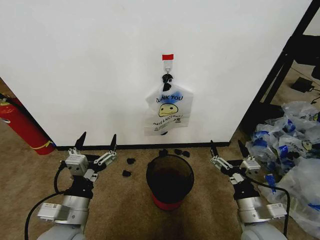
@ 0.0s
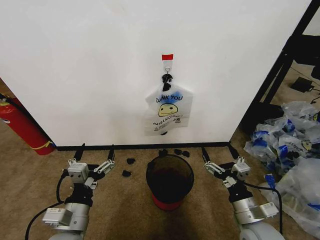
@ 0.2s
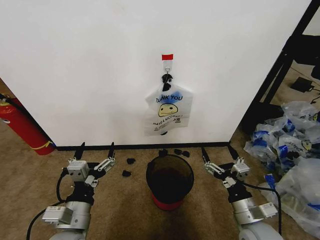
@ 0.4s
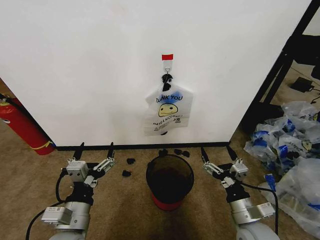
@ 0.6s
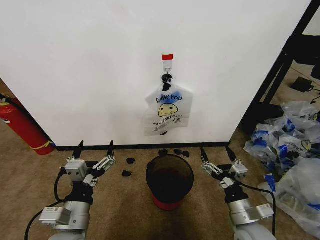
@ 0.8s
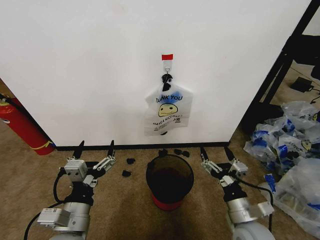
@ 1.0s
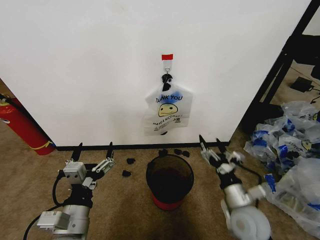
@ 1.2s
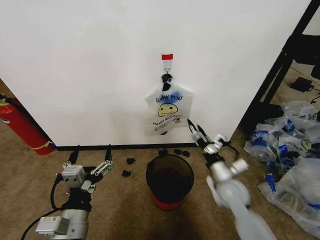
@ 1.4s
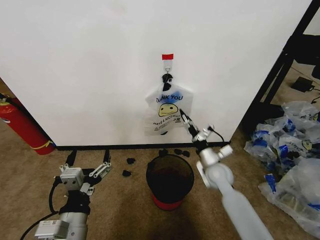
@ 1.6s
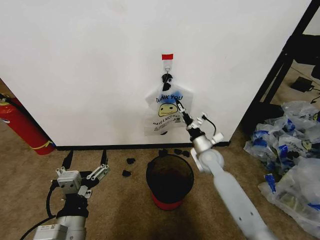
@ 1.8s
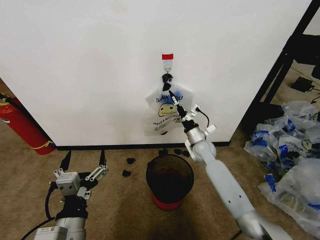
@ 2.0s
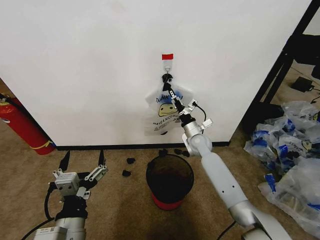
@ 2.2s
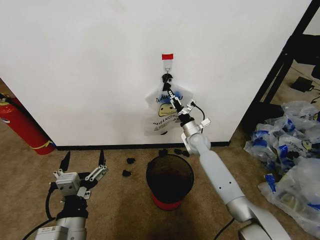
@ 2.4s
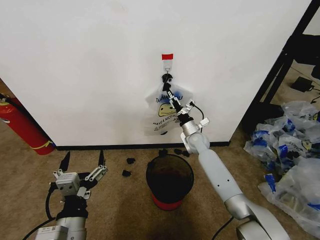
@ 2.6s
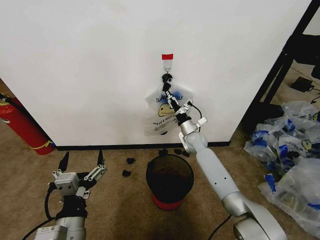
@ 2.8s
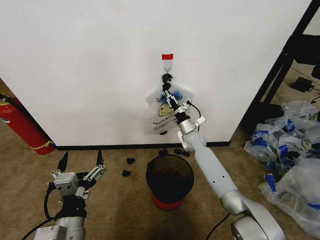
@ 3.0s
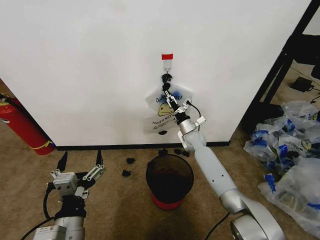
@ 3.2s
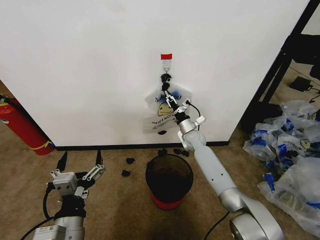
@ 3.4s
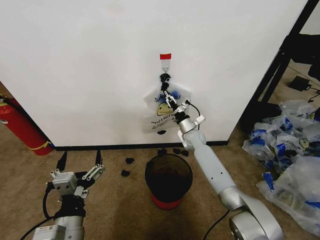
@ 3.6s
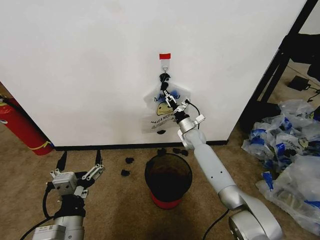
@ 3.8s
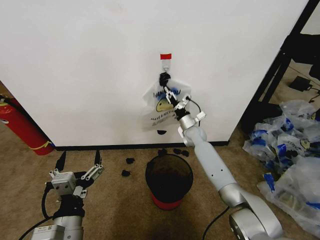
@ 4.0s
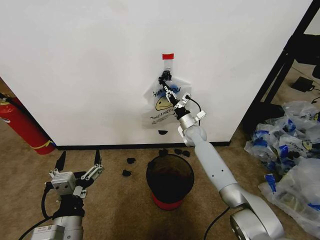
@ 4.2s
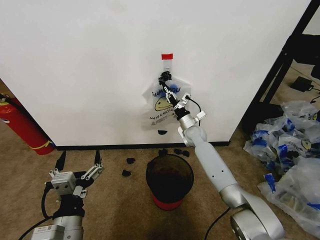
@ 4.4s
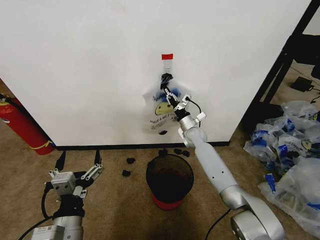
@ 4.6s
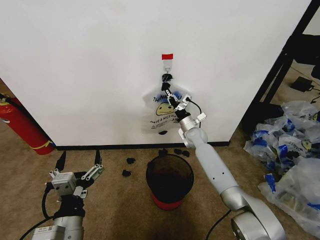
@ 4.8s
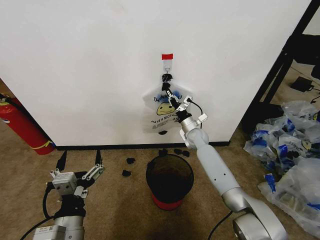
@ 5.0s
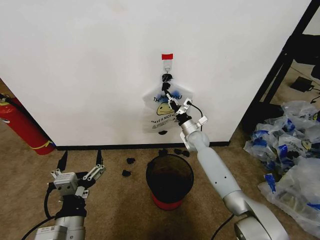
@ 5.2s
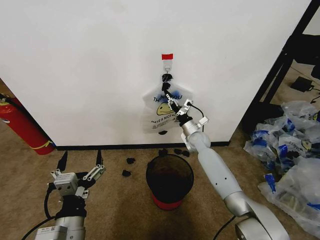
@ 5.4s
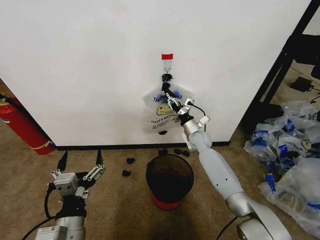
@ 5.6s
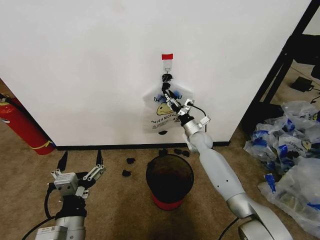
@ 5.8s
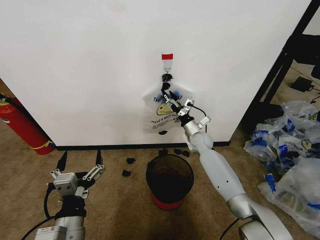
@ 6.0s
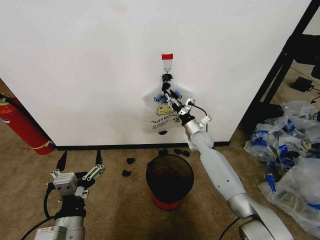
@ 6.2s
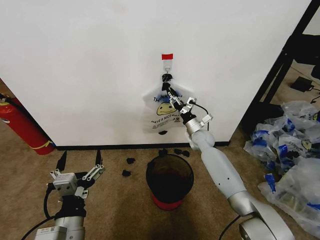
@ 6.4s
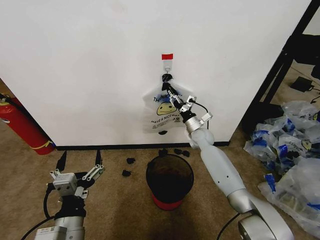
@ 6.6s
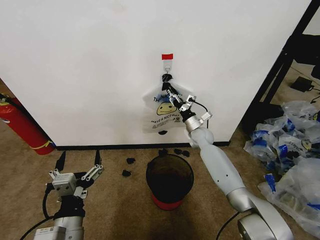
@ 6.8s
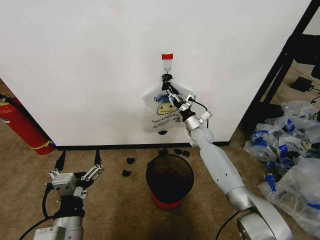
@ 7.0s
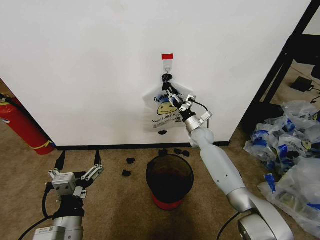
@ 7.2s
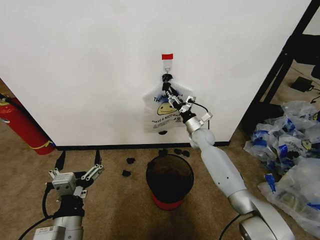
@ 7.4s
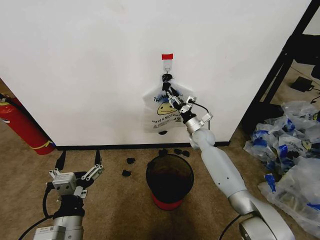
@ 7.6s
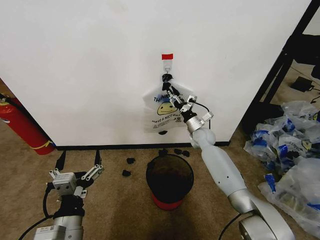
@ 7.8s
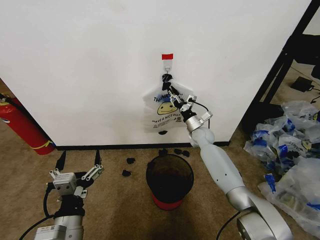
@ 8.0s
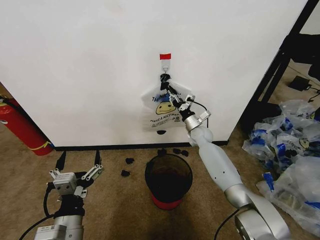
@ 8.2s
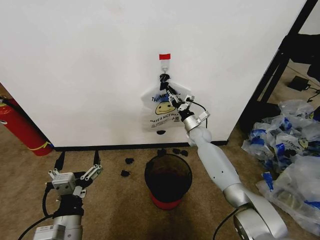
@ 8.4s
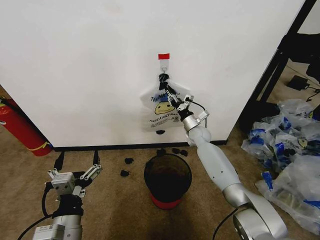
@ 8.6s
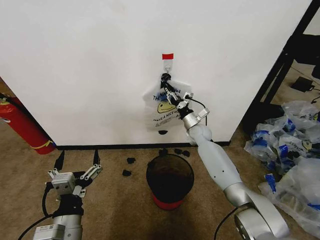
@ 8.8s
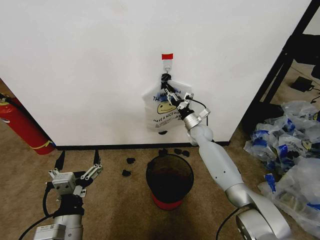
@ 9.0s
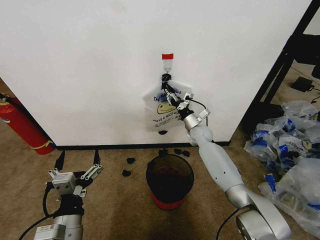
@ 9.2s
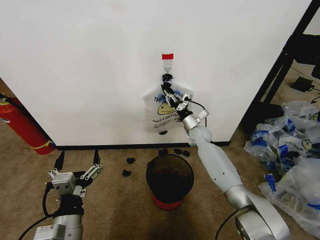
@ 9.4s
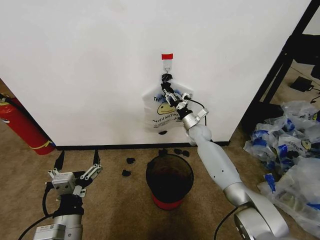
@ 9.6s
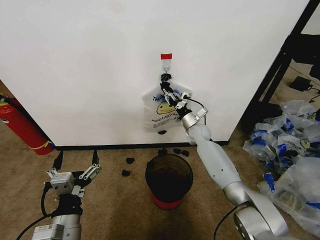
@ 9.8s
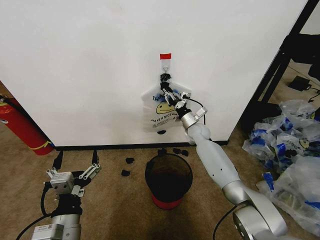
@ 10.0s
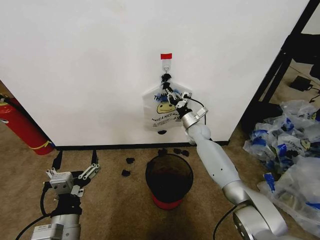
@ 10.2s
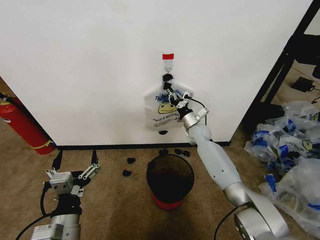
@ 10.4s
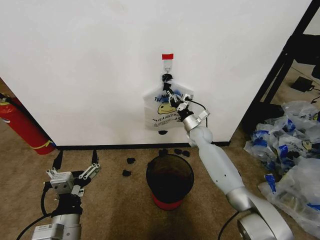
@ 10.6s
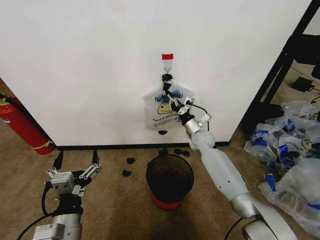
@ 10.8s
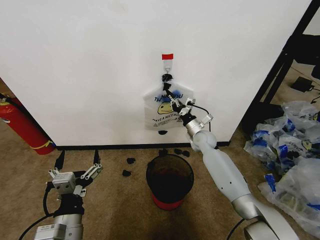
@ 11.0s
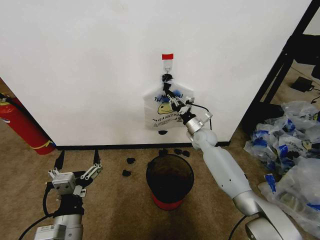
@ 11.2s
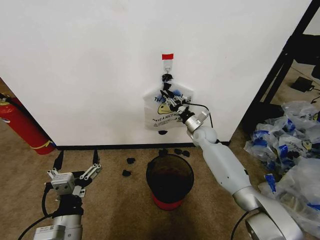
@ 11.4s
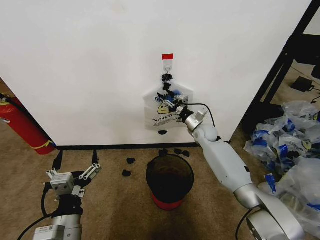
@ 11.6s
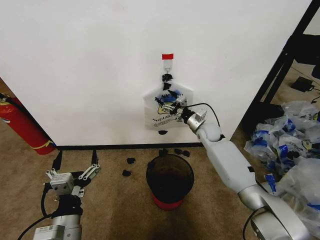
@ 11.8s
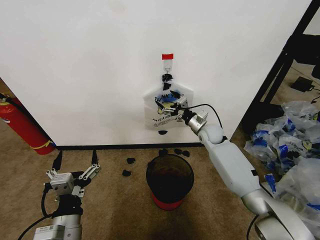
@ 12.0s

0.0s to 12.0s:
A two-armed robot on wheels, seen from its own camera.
Task of the whole recording: Pick up the garbage bag from the wall and place it over the trash bin.
1.6s to 3.0s: The right gripper shifts some 15 cm forward.
3.0s to 4.4s: The right gripper closes.
4.4s to 6.0s: The right gripper opens its fingers.
6.0s to 9.0s: There are only small adjustments of the grippers.
9.0s to 10.4s: The right gripper closes.
10.4s to 12.0s: The right gripper moves about 5 cm, and opens its fingers.

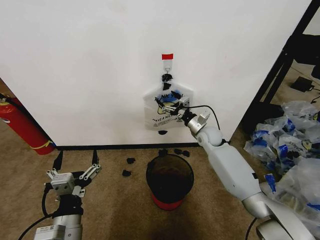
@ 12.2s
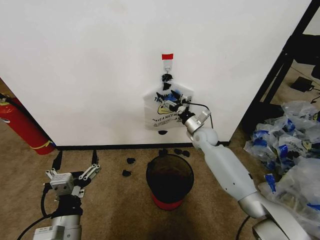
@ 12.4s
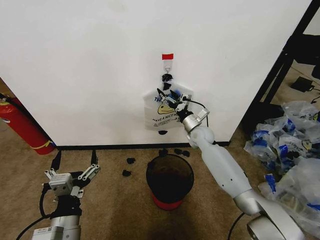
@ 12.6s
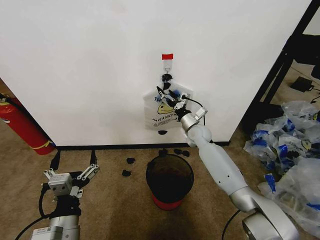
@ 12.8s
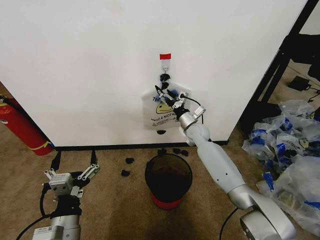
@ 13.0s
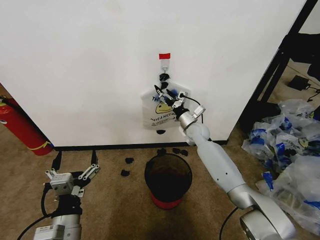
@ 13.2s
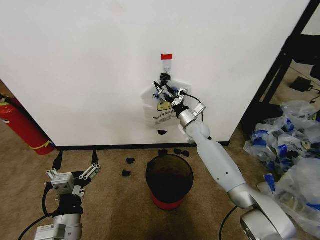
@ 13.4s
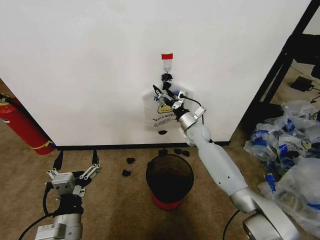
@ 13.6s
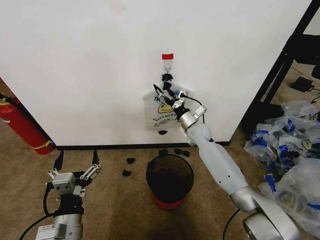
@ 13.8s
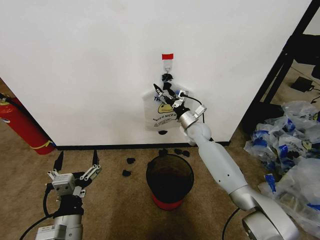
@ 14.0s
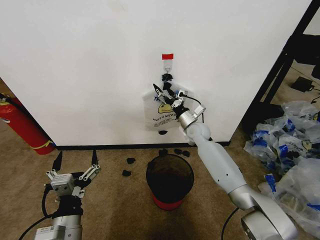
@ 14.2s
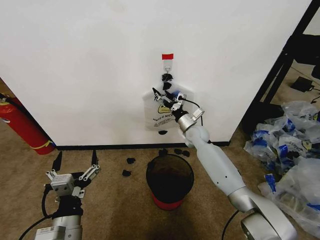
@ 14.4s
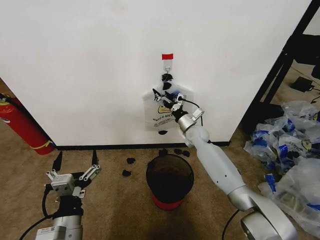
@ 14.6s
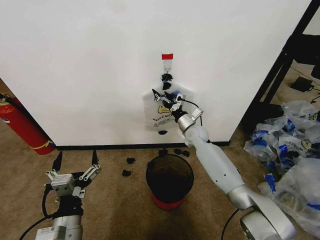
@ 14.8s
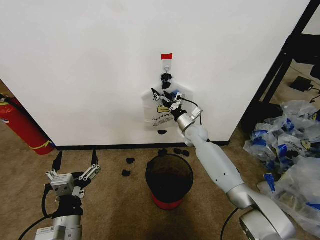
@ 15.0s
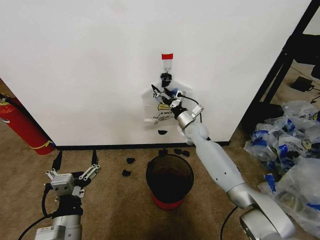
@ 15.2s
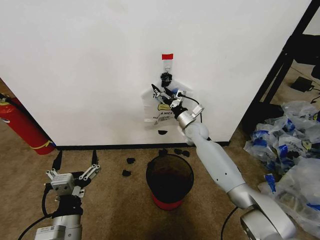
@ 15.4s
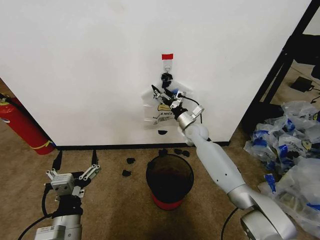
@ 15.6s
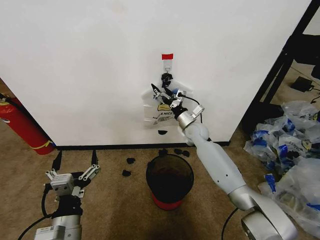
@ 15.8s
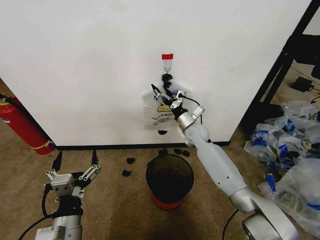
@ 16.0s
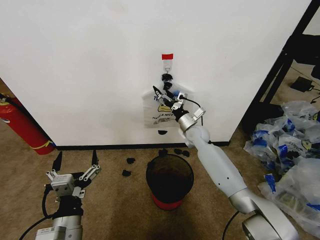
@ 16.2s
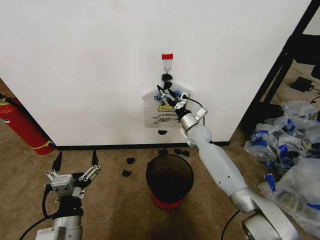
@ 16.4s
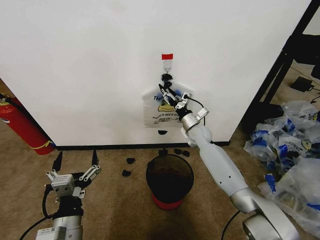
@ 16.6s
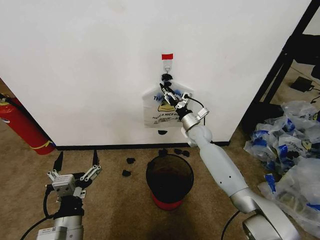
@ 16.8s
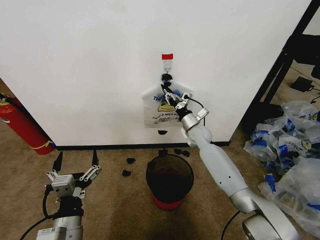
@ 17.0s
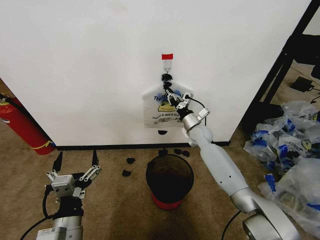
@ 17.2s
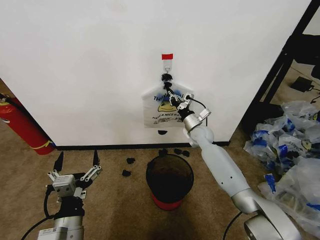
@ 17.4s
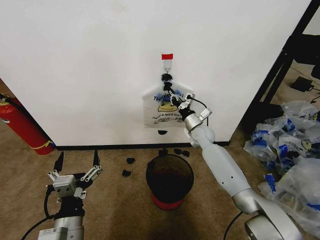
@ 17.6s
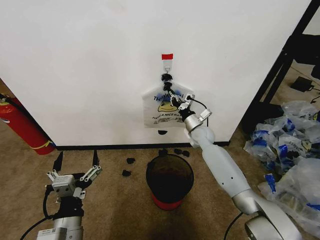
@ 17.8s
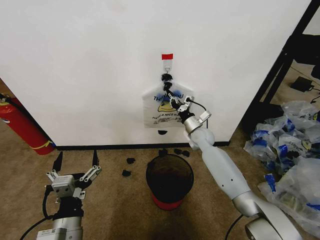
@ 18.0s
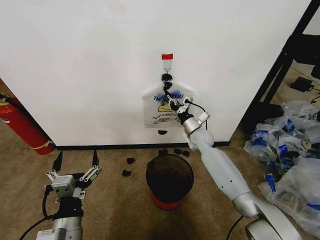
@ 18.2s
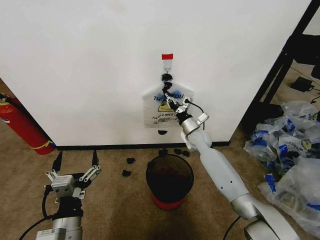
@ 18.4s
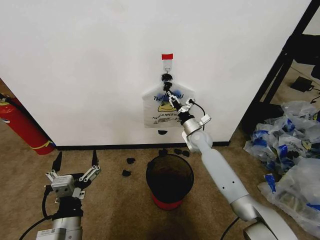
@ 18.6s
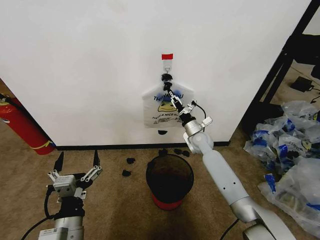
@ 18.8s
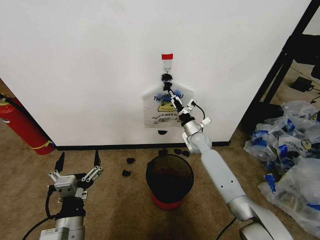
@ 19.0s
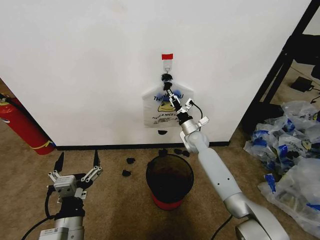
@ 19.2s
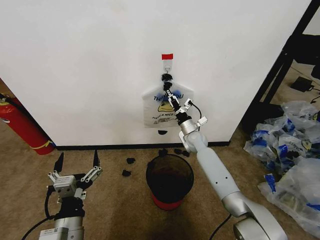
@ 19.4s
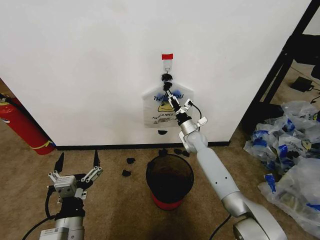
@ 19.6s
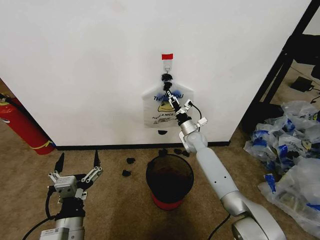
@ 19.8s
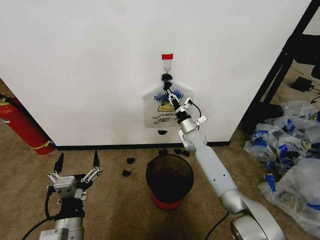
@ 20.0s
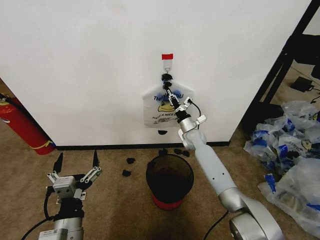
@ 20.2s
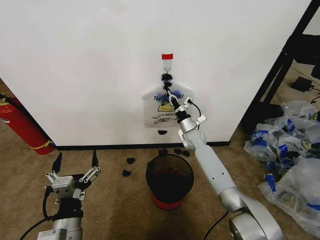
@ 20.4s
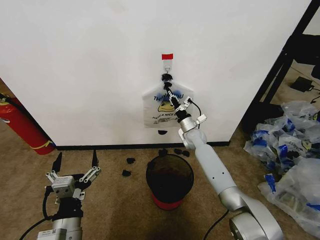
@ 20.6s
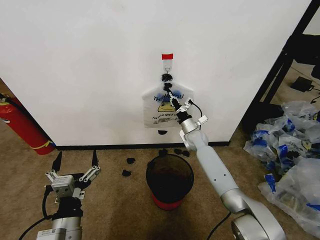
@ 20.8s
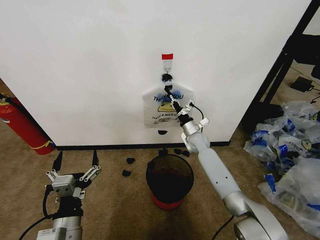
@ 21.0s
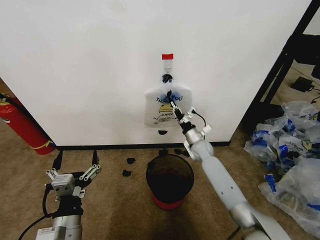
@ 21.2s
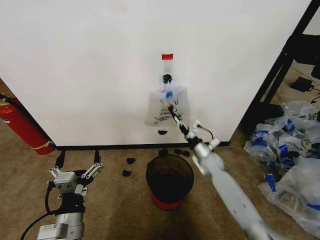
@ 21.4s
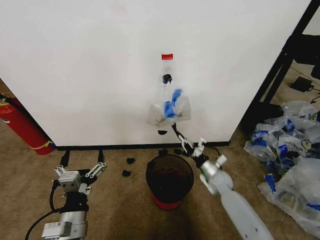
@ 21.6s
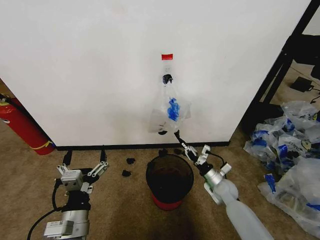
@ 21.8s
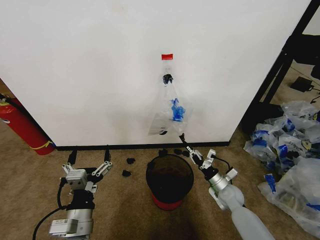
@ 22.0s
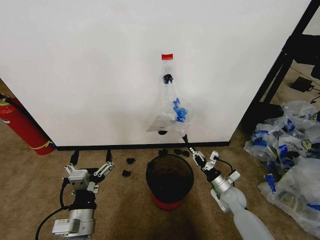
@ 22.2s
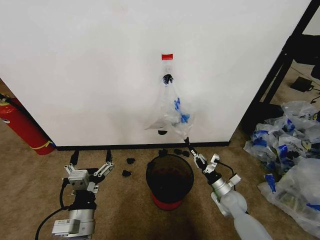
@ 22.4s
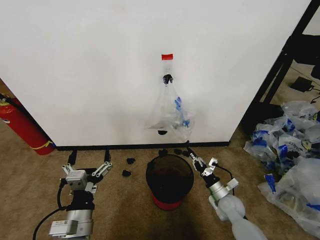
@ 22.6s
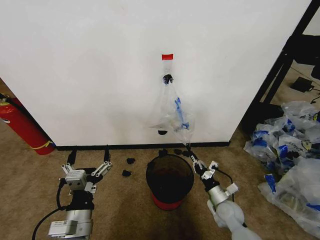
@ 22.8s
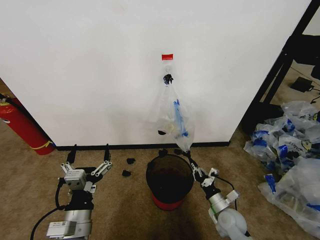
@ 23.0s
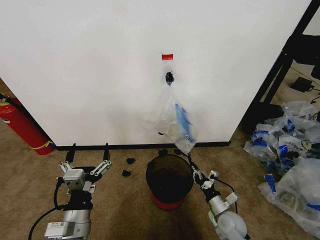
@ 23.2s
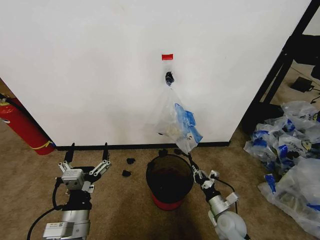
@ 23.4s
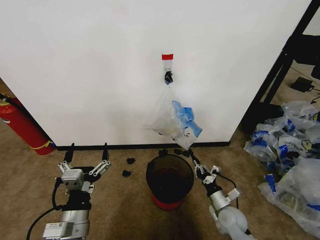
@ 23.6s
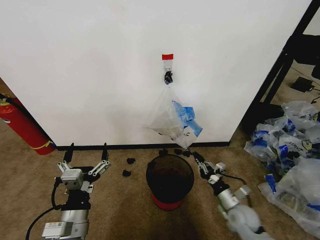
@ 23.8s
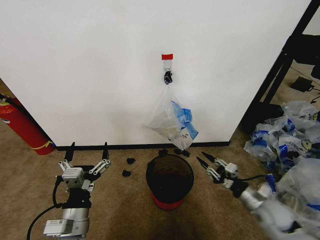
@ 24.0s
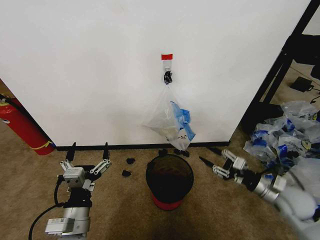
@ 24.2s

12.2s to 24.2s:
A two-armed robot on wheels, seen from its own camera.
Task of the whole recording: Pick up the garbage bag from the wall and place it over the trash bin.
13.8s to 16.6s: There are only small adjustments of the grippers.
16.6s to 18.2s: The right gripper closes.
18.2s to 19.8s: The right gripper opens its fingers.
19.8s to 21.2s: The right gripper changes place by some 5 cm, and closes.
21.2s to 22.6s: The right gripper heads backward, downward and to the right, covering roughly 25 cm.
22.6s to 24.2s: The right gripper moves upward and to the right, about 20 cm, and opens its fingers.
